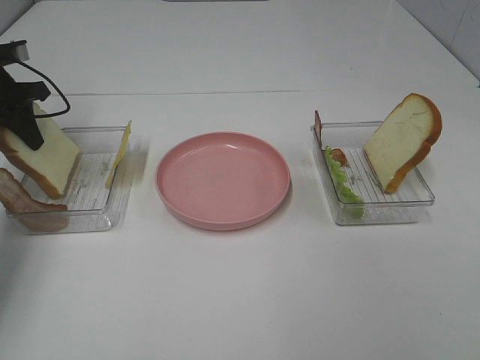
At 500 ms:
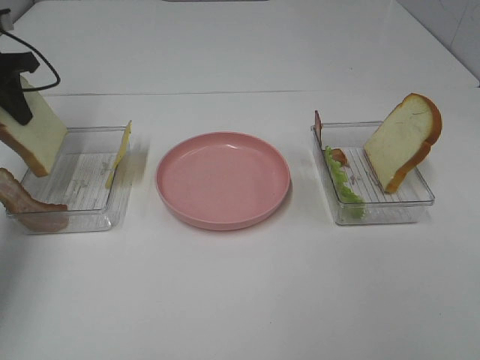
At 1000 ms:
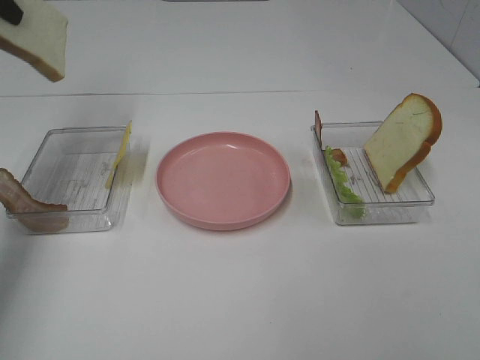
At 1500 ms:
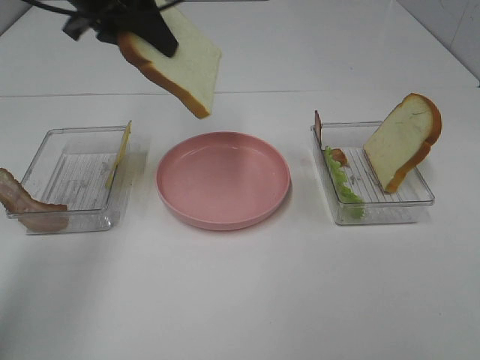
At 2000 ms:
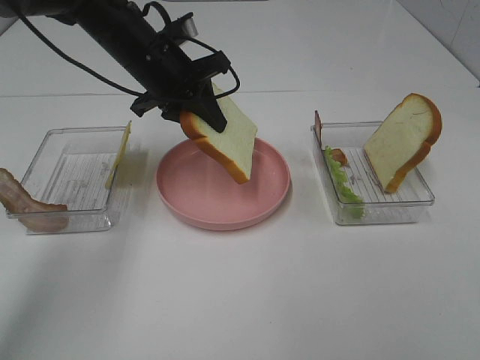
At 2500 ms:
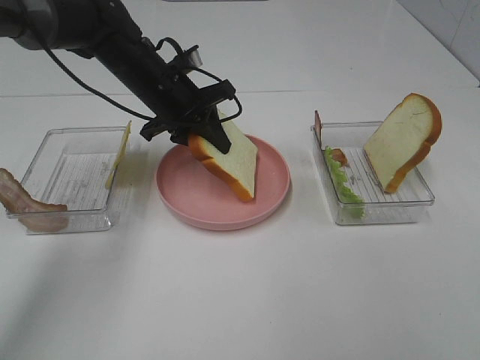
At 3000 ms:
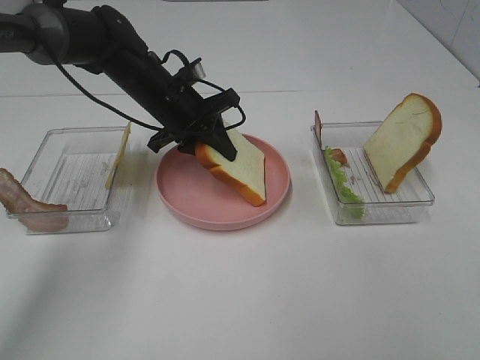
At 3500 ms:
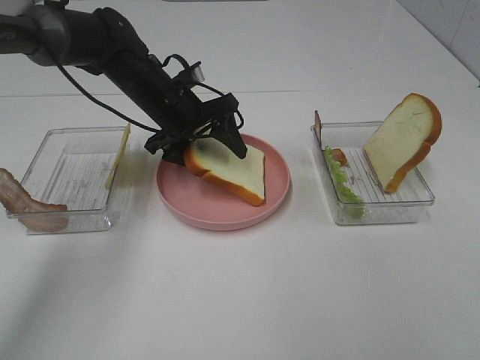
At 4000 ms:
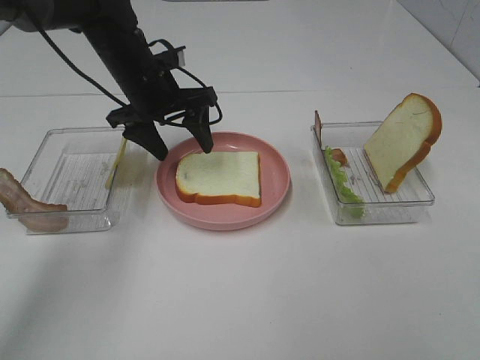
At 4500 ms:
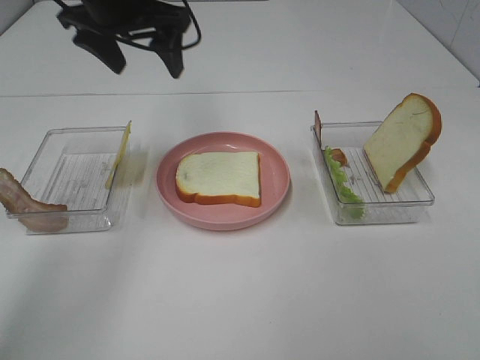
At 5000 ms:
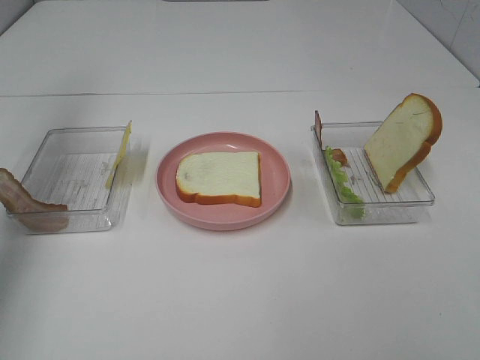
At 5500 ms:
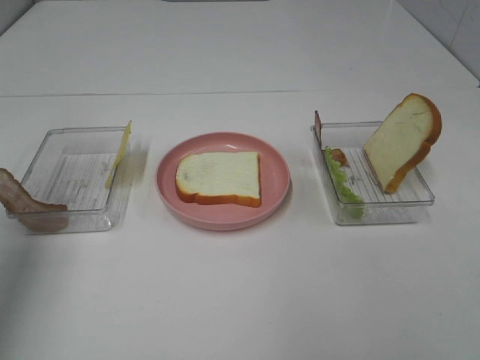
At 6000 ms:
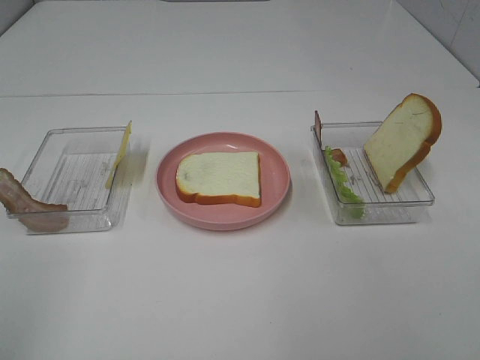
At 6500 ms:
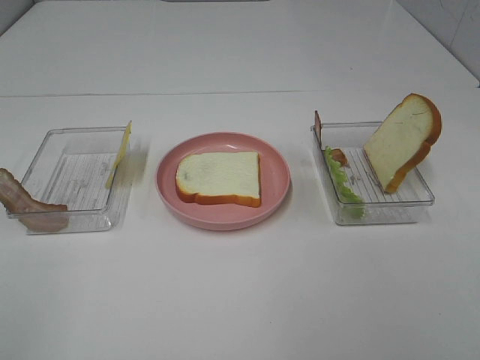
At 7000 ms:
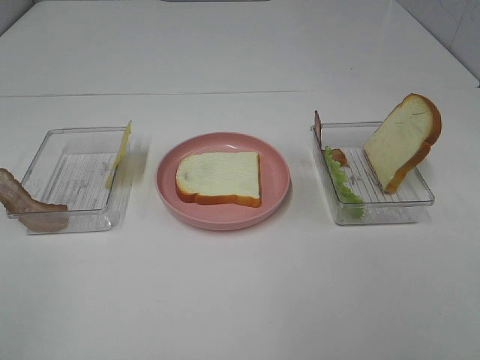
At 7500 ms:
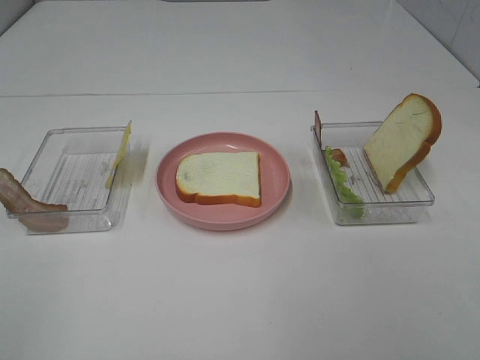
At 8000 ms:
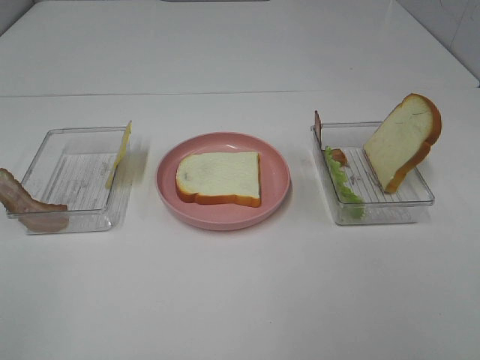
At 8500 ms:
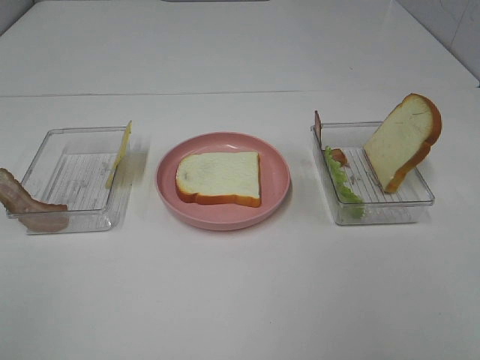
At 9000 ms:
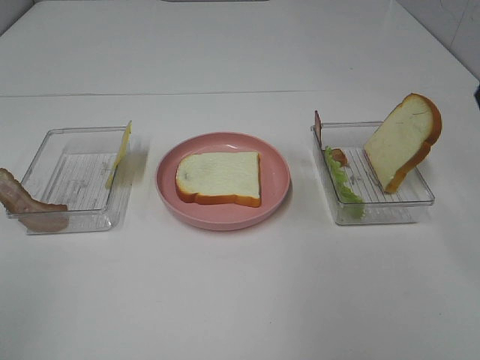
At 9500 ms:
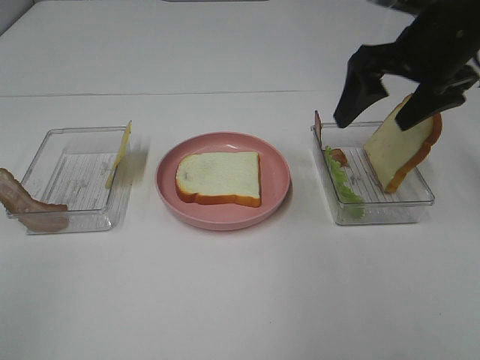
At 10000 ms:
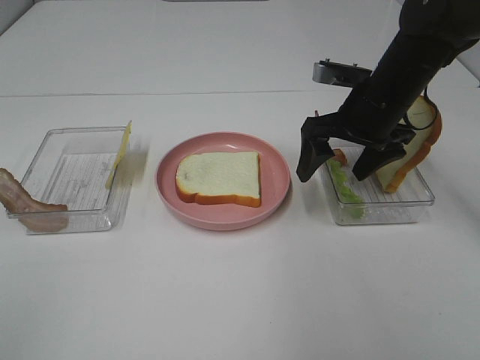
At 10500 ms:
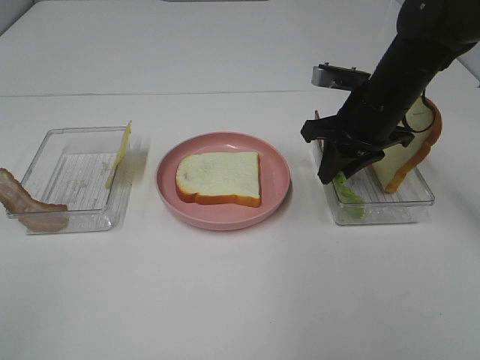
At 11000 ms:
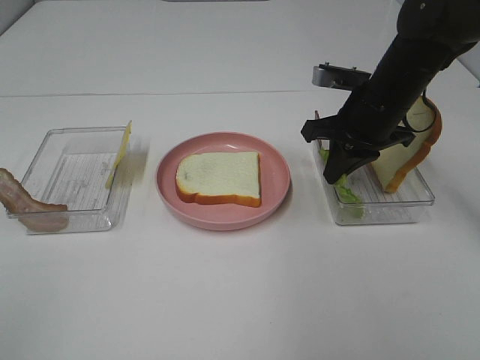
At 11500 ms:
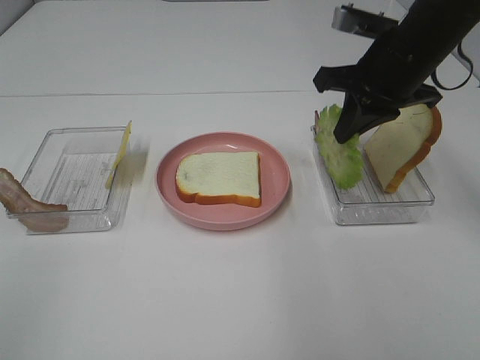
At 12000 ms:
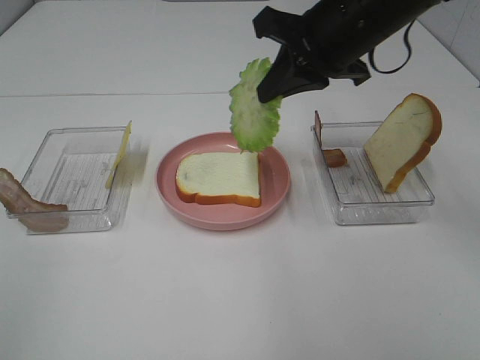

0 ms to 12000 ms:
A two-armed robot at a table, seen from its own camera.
Task of the whole recording: Make sandwiches.
Step, 0 ms to 3500 ms: Left hand:place the bread slice on the plate.
Step, 4000 ms to 10500 ms: Right hand:grab the lettuce slice.
0 ms to 2000 ms: The left gripper is displaced to the right by some 25 cm.
2000 ms to 4000 ms: The left gripper opens up.
4000 ms to 6000 ms: The left gripper is displaced backward and to the left by about 50 cm.
8000 ms to 10000 ms: The right gripper is displaced forward by about 35 cm.
10000 ms to 12000 ms: The right gripper heads upward and to the left, covering about 10 cm, and closes its fingers.

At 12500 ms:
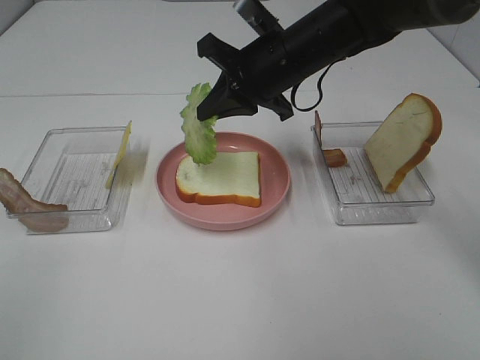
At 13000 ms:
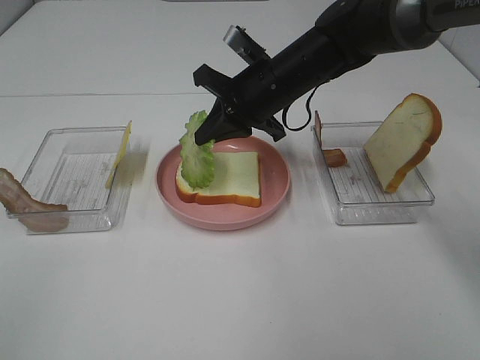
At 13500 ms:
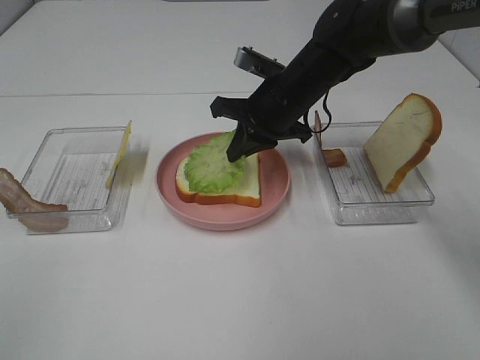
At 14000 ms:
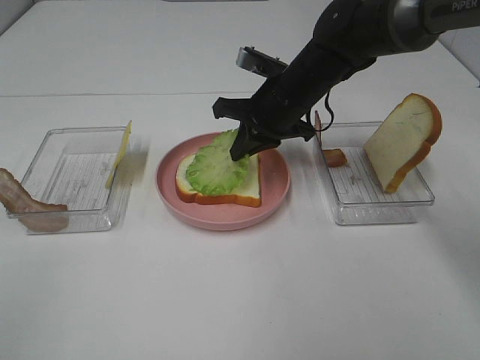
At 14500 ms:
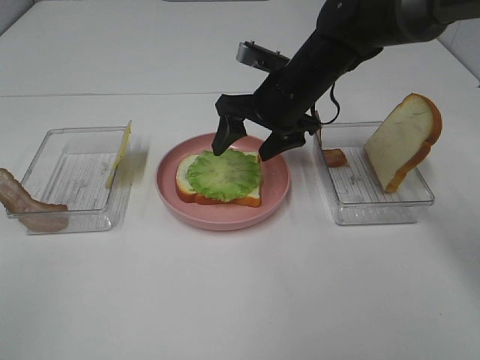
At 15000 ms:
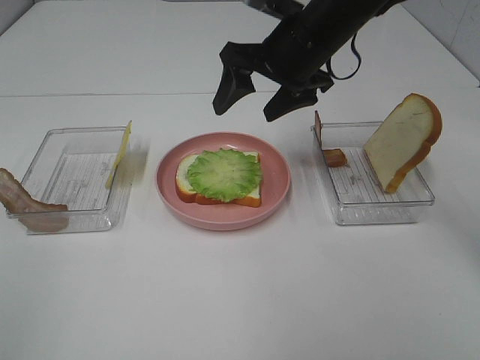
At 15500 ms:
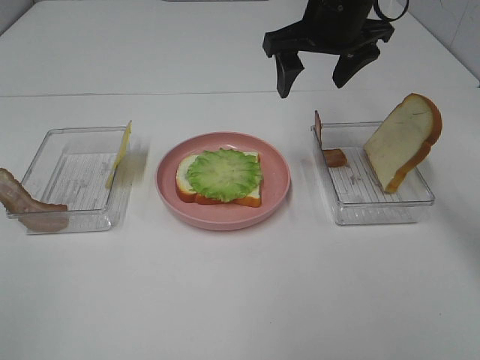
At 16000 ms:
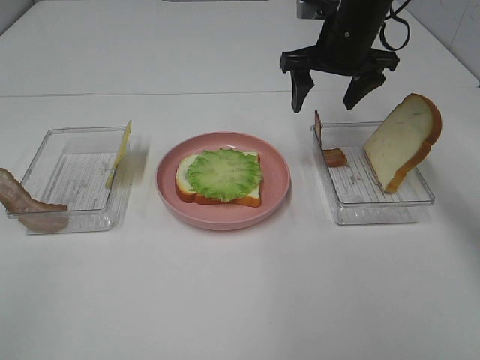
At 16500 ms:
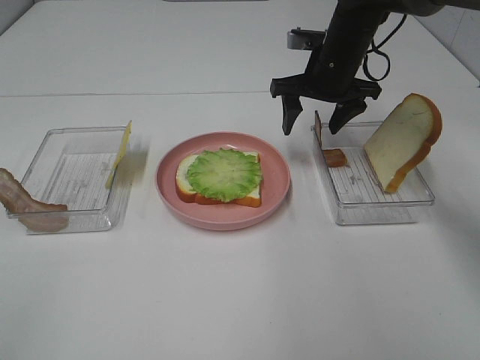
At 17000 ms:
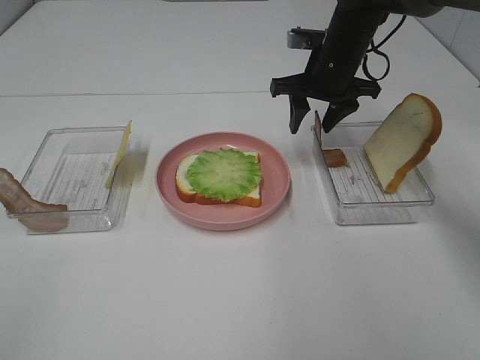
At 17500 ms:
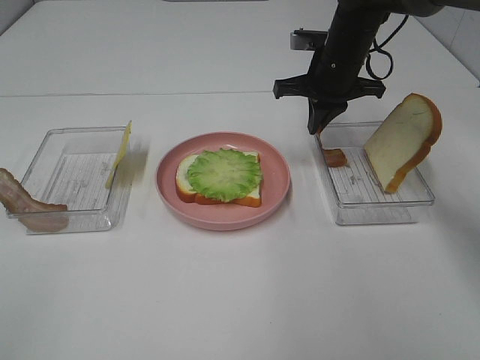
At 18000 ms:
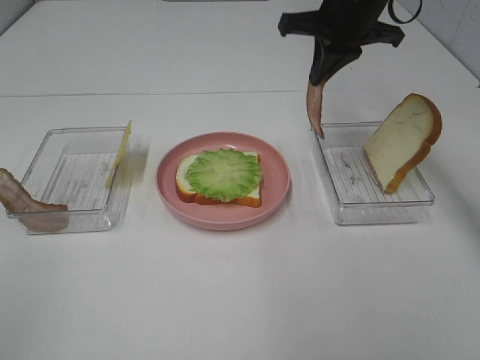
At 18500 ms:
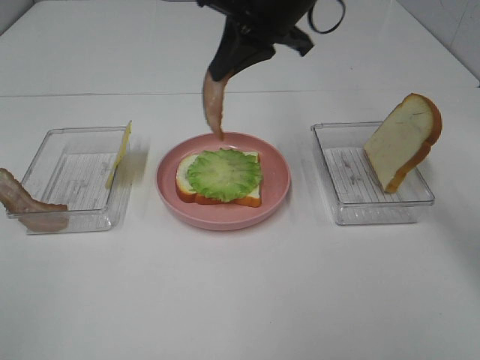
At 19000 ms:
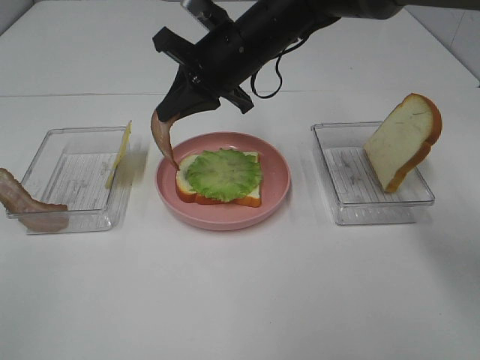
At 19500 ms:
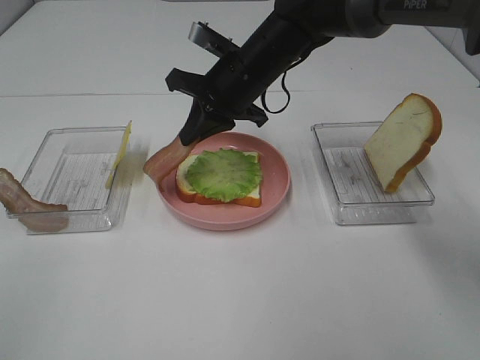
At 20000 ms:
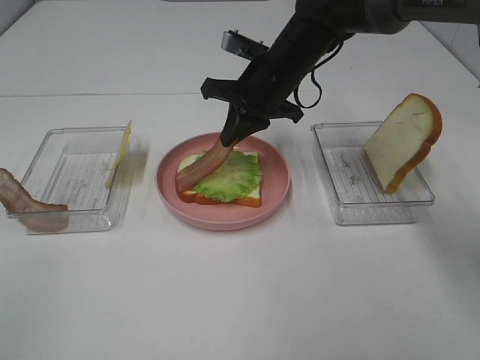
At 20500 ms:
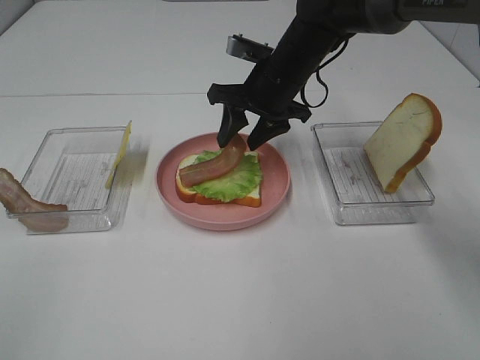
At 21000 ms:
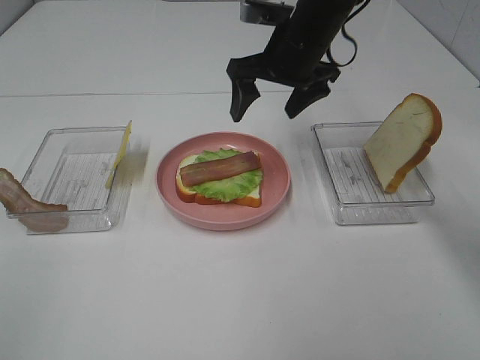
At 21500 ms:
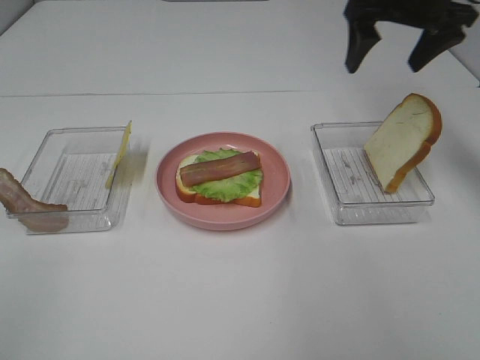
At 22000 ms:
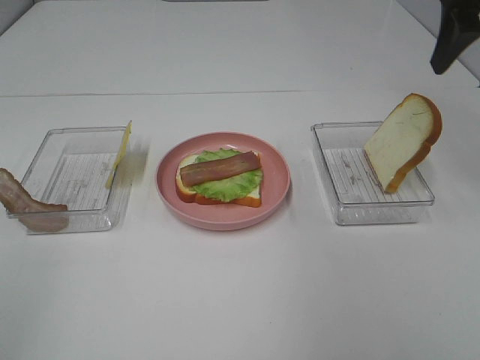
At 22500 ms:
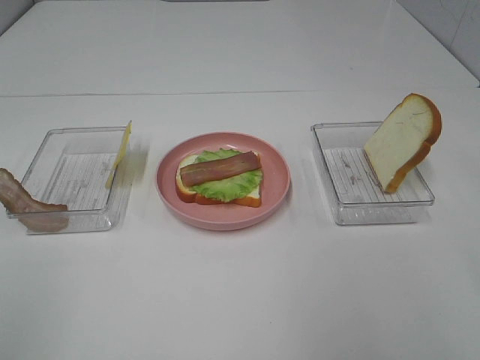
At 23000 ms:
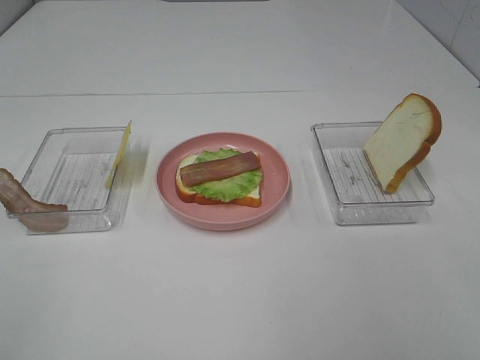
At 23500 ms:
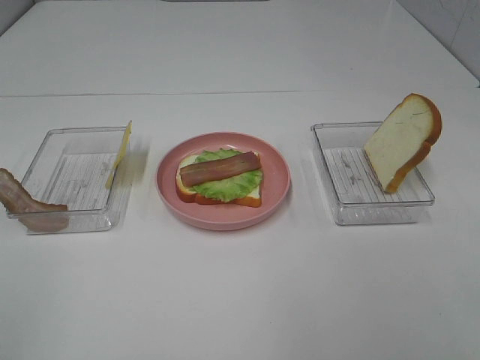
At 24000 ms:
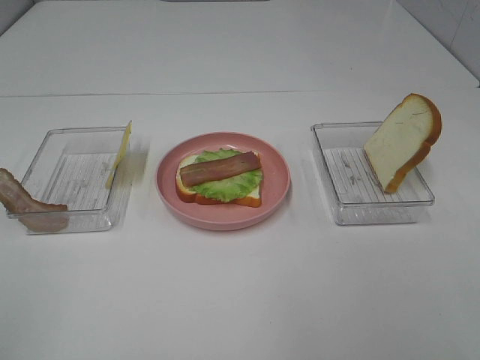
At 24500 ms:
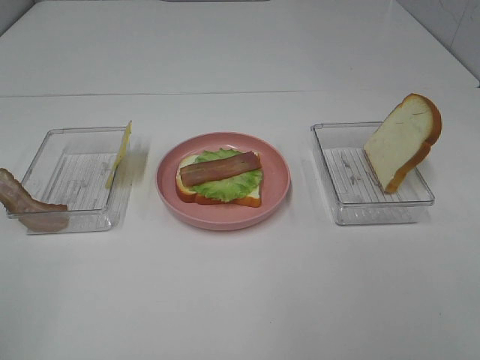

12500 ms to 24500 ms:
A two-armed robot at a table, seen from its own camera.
Task of the whole recording: Make sandwiches.
Step, 12500 ms to 14500 ms: Right hand:place the lettuce slice on the bread slice.
Step, 15000 ms to 17500 ms: Right hand:grab the bacon.
Step, 18000 ms to 20500 ms: Right hand:place bacon on lettuce slice.
12500 ms to 14500 ms: The right gripper opens its fingers.
14500 ms to 16500 ms: The right gripper heads forward and to the right, covering some 10 cm, and travels upward and back again, roughly 10 cm each way.
16500 ms to 18500 ms: The right gripper heads upward, to the left and backward, covering approximately 15 cm, and closes its fingers.
18500 ms to 20500 ms: The right gripper shifts roughly 10 cm downward, and opens its fingers.
20500 ms to 22500 ms: The right gripper travels backward, to the right and upward by roughly 40 cm.

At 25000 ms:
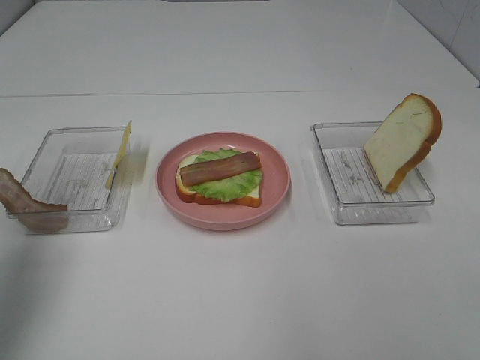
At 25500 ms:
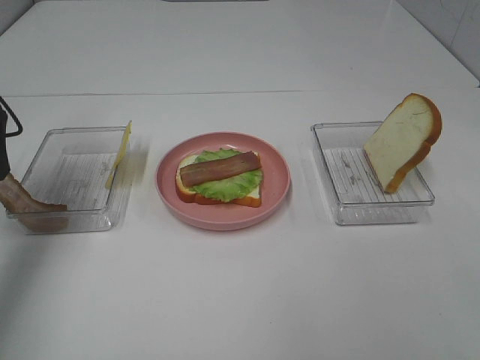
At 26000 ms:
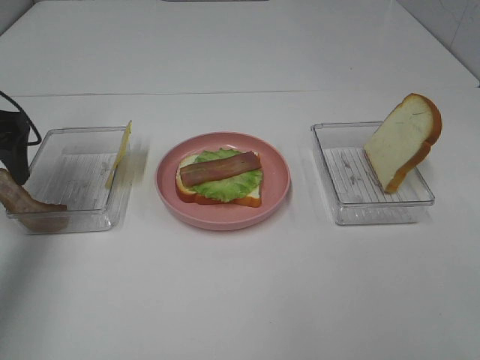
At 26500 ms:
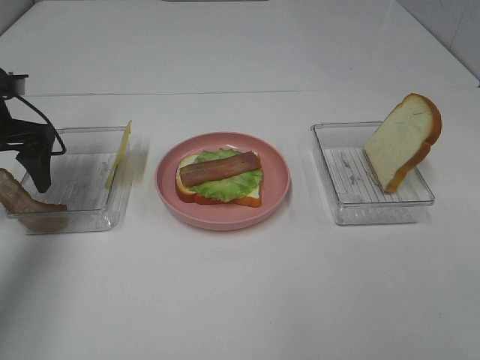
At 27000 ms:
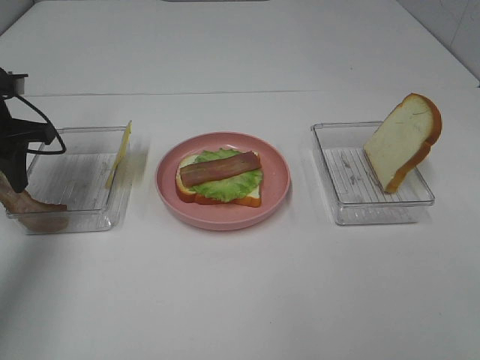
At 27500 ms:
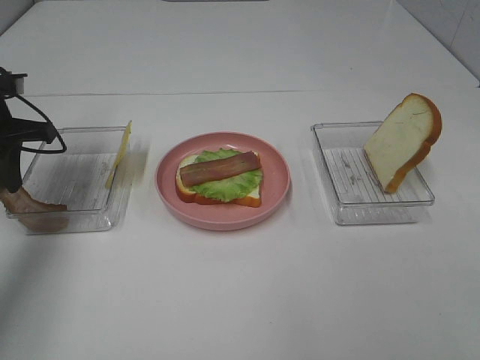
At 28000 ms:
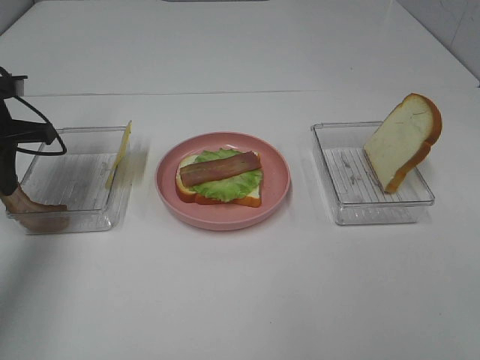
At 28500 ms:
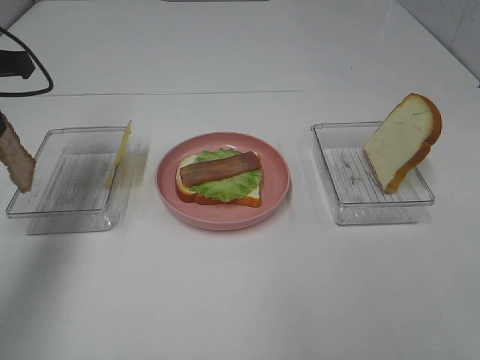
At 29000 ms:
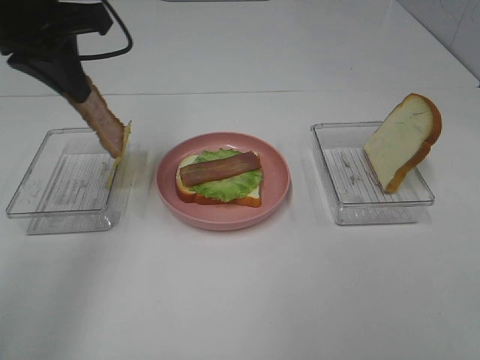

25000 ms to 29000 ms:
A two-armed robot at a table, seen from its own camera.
Task of the whole recording: Make sandwiches.
Step, 25000 ms to 27500 ms: Left hand:grab the bacon.
25000 ms to 27000 ms: The left gripper moves forward and downward, approximately 20 cm, and closes its fingers.
27000 ms to 29000 ms: The left gripper is displaced upward and to the right by roughly 15 cm, and closes its fingers.
